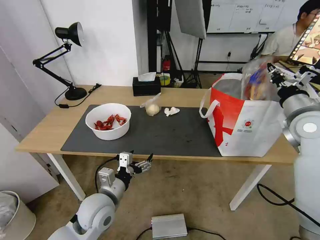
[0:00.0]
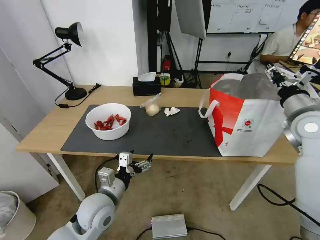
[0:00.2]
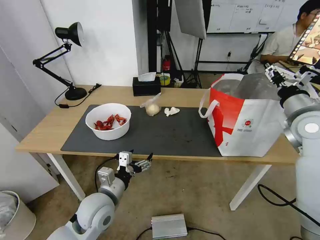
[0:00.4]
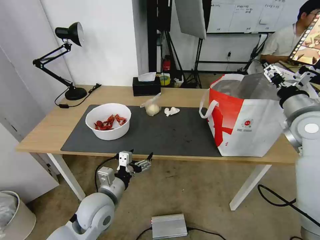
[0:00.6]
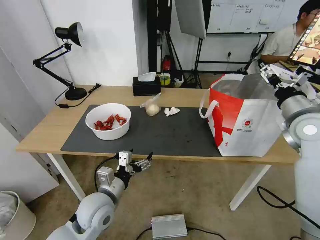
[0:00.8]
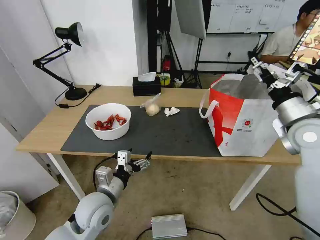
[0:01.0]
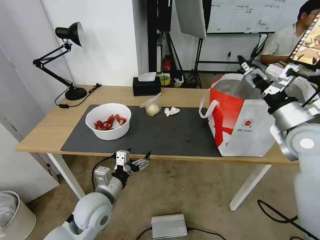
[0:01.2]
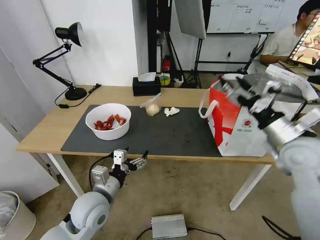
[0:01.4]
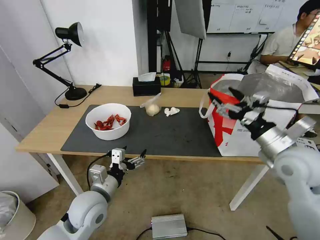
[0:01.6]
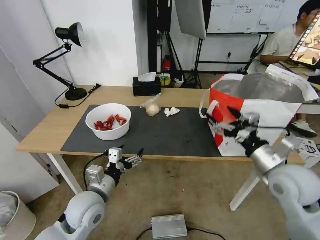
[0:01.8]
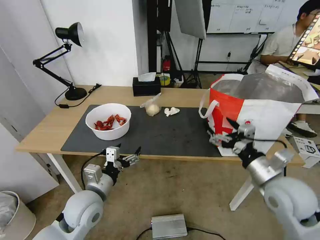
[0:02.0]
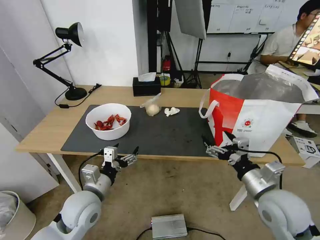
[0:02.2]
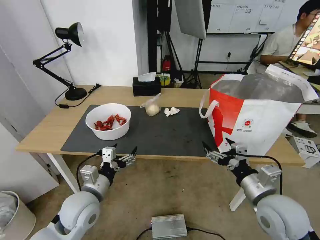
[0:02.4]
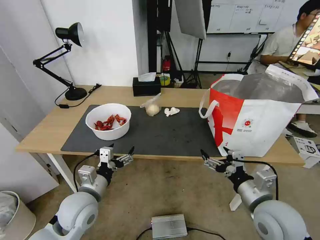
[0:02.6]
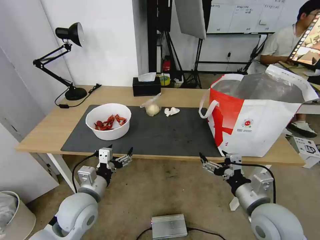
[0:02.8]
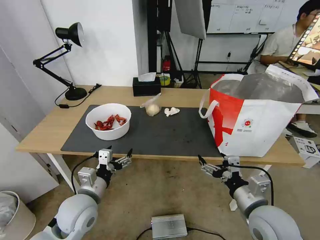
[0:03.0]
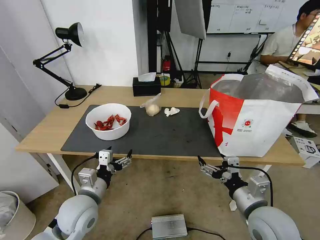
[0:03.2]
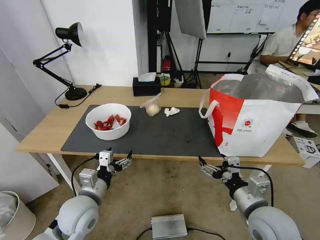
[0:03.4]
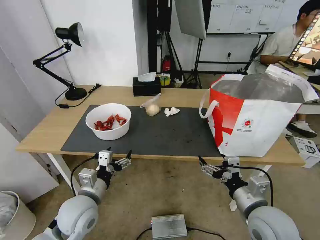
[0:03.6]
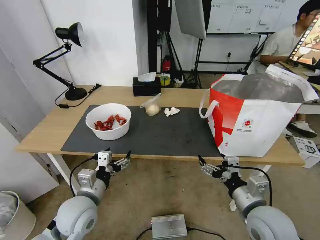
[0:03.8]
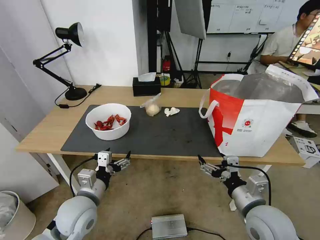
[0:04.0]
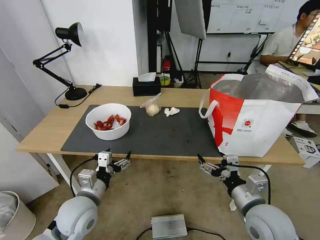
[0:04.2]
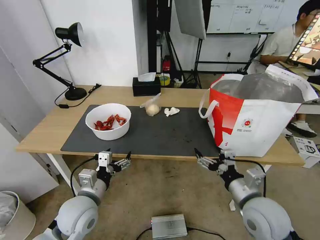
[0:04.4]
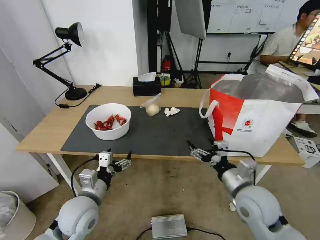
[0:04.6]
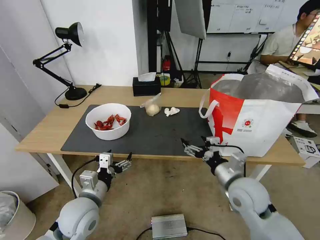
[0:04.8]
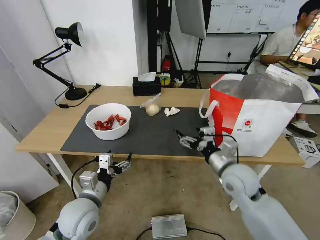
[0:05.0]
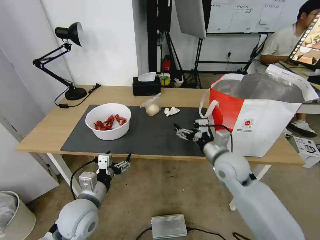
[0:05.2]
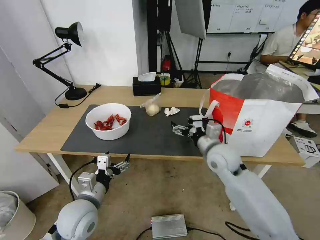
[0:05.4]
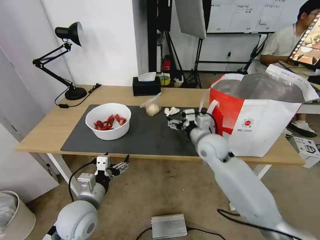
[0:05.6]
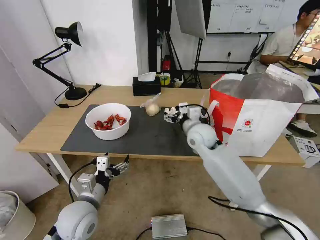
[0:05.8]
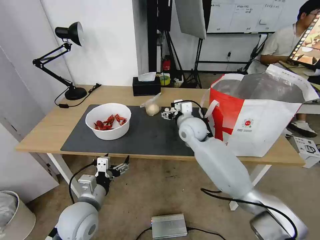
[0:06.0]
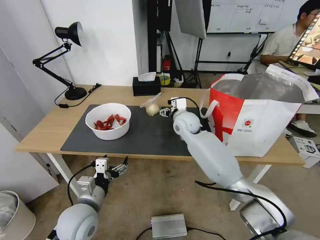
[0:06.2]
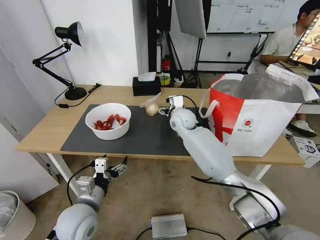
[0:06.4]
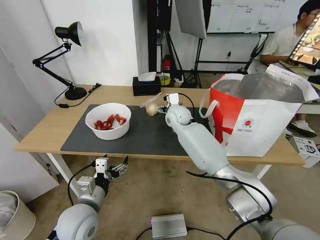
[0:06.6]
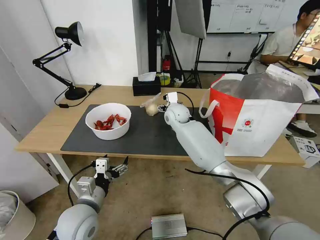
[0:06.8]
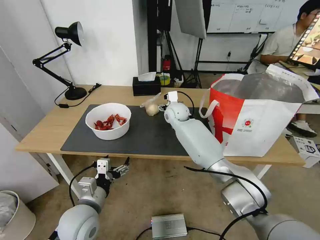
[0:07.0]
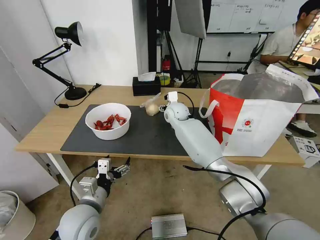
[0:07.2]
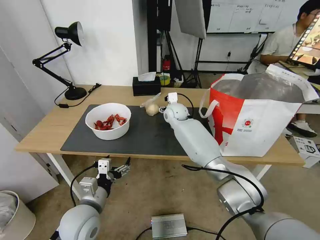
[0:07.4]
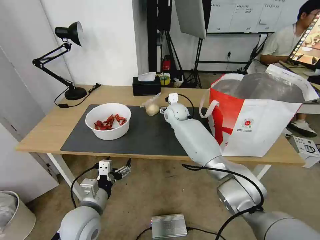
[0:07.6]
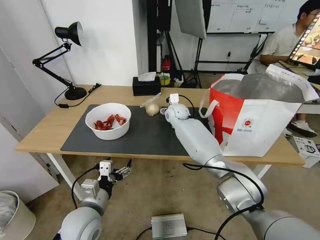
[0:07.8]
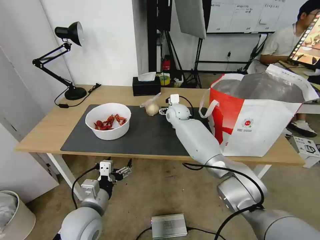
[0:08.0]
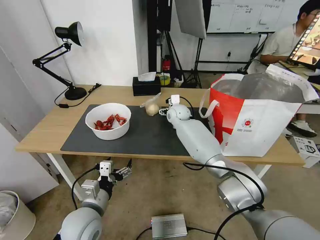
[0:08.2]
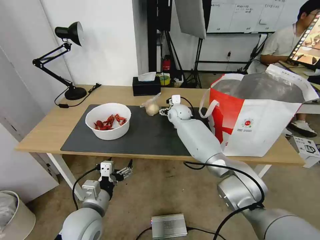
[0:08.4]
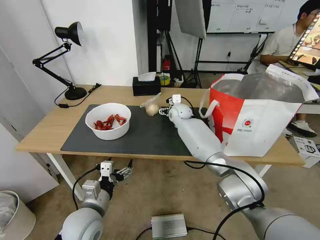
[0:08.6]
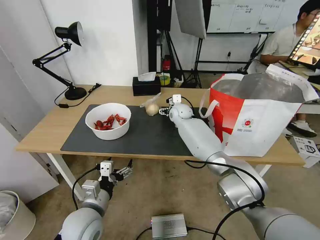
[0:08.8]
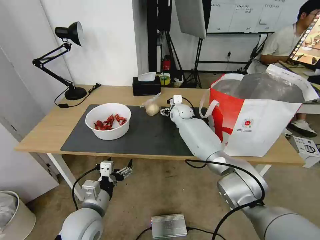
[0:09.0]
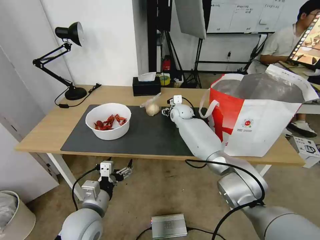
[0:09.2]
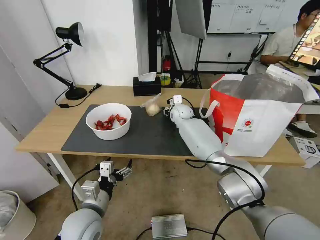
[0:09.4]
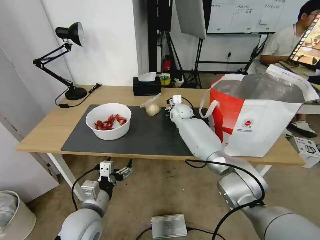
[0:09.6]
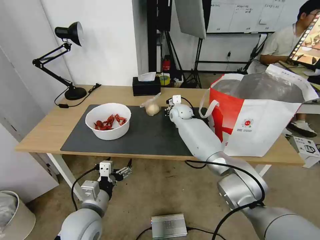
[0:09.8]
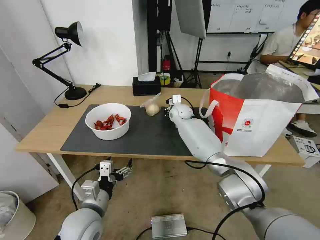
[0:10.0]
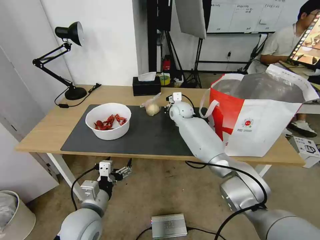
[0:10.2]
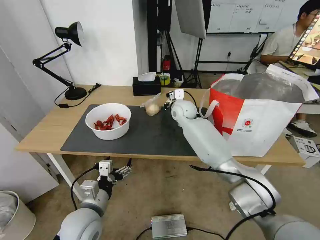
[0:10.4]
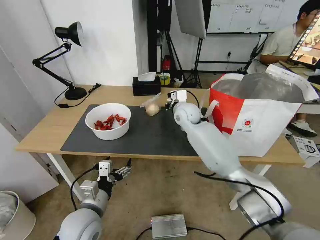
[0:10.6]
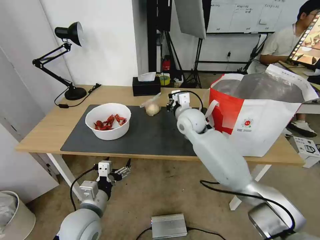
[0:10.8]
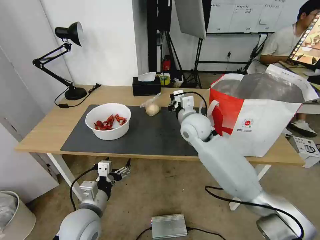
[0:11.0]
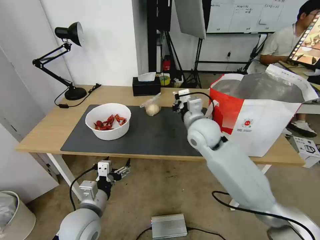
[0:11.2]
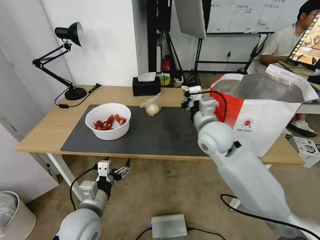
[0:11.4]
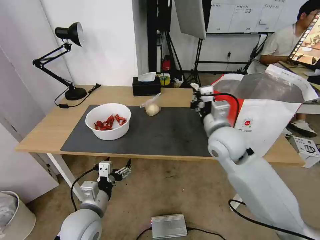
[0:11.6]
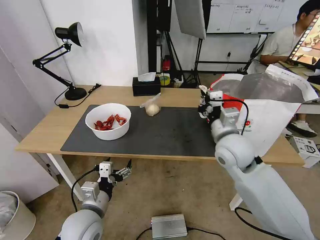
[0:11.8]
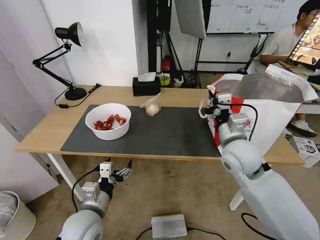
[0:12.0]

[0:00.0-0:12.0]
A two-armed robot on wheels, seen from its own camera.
Task of the whole recording: Pick up the trash from the table and place it into the takeout bag.
0:00.0 to 0:01.6: The right gripper heads backward and to the left, covering some 10 cm, and opens up.
0:01.6 to 0:03.0: The right gripper moves downward, backward and to the left, approximately 15 cm.
0:03.0 to 0:04.4: There are only small adjustments of the grippers.
0:04.4 to 0:06.0: The right gripper goes approximately 30 cm forward and to the left.
0:06.0 to 0:07.6: The right gripper travels forward by roughly 10 cm.
0:07.6 to 0:09.0: The grippers stay close to where they were, moving slightly.
0:09.0 to 0:10.4: The right gripper changes place by roughly 5 cm, and closes up.
0:10.4 to 0:12.0: The right gripper moves backward and to the right, about 25 cm.

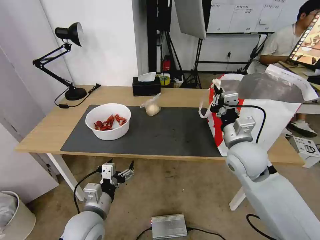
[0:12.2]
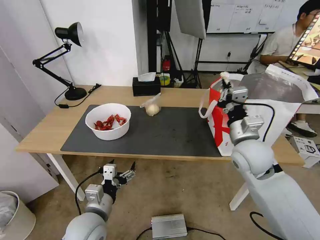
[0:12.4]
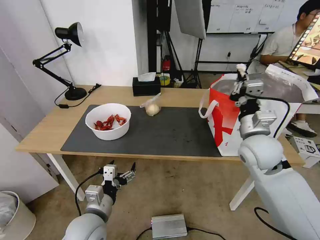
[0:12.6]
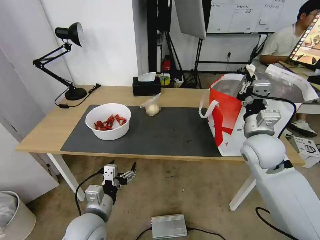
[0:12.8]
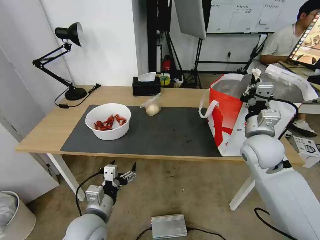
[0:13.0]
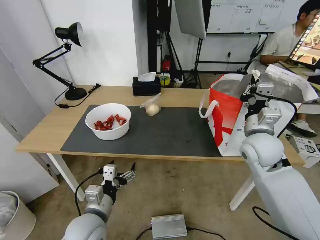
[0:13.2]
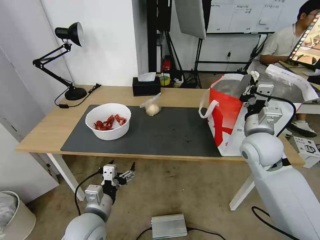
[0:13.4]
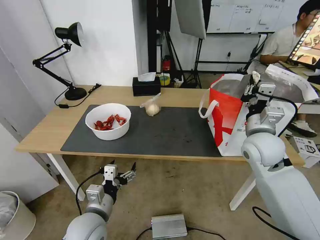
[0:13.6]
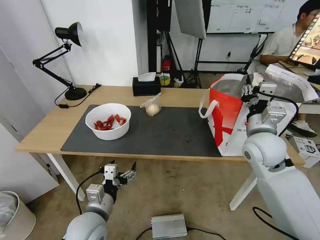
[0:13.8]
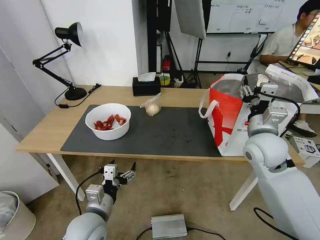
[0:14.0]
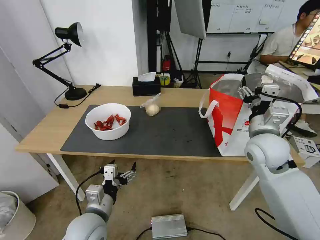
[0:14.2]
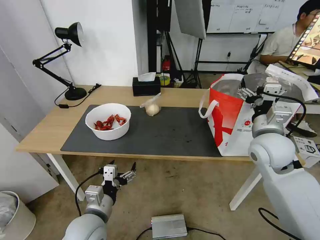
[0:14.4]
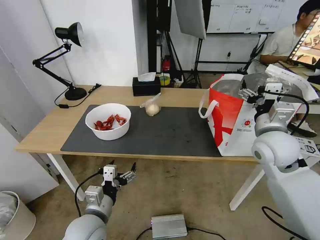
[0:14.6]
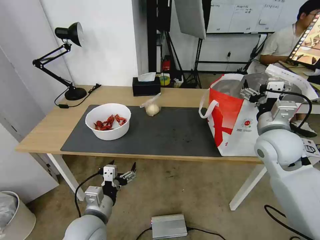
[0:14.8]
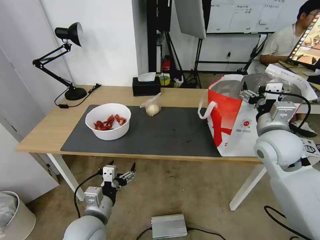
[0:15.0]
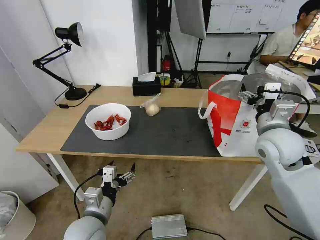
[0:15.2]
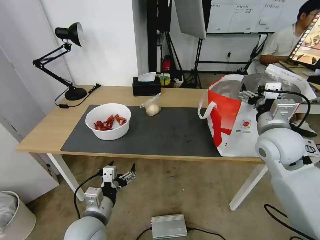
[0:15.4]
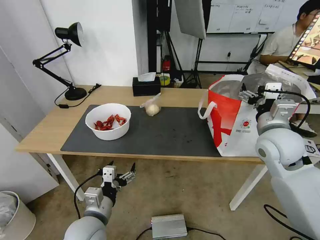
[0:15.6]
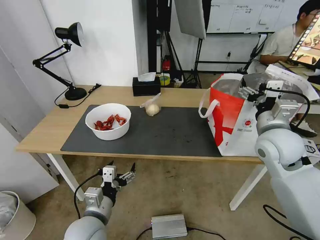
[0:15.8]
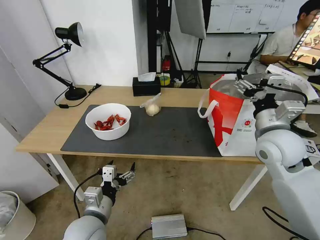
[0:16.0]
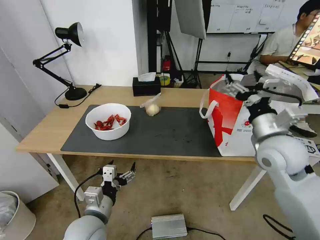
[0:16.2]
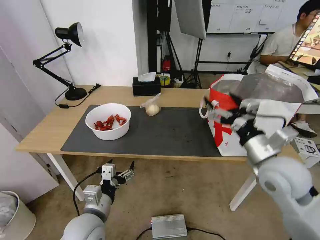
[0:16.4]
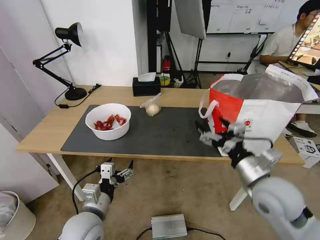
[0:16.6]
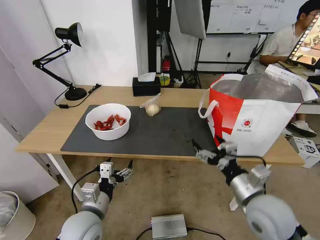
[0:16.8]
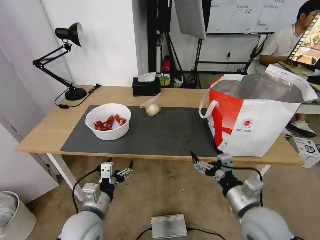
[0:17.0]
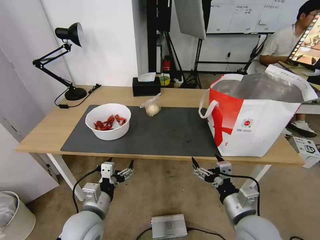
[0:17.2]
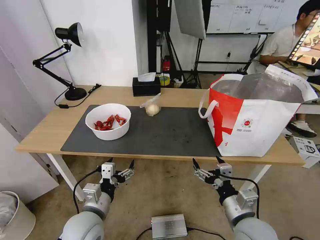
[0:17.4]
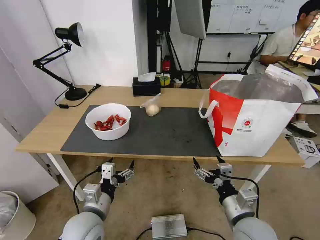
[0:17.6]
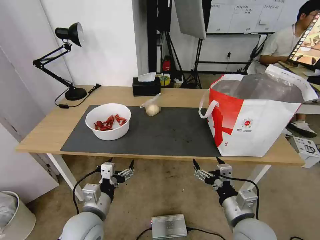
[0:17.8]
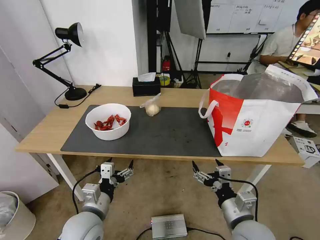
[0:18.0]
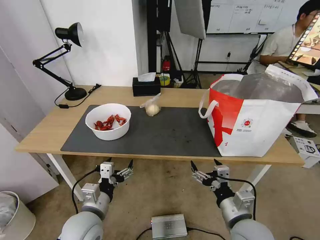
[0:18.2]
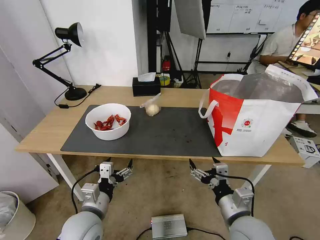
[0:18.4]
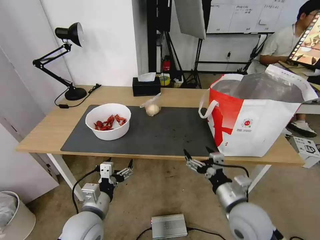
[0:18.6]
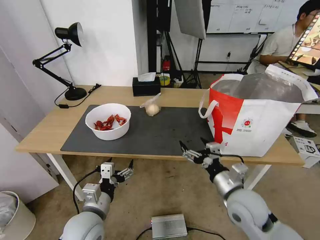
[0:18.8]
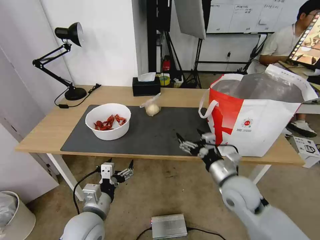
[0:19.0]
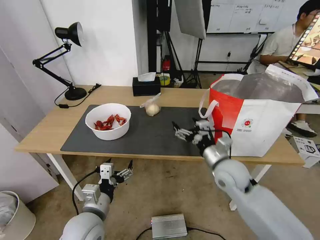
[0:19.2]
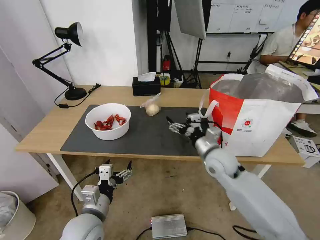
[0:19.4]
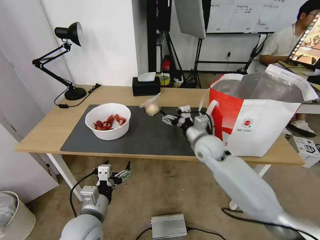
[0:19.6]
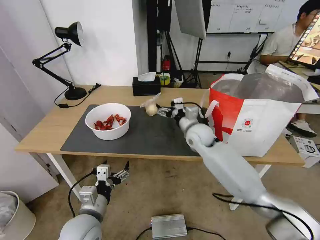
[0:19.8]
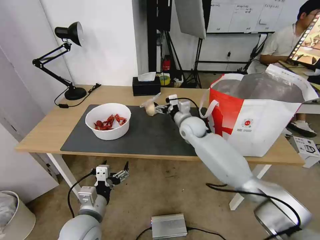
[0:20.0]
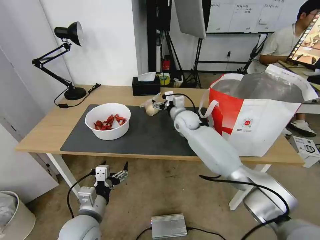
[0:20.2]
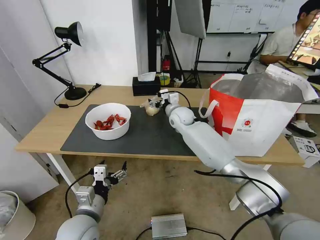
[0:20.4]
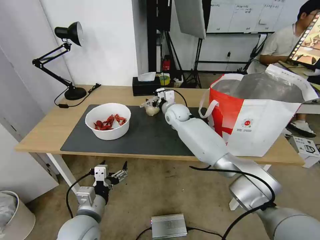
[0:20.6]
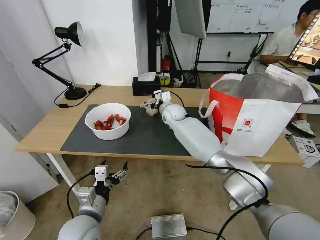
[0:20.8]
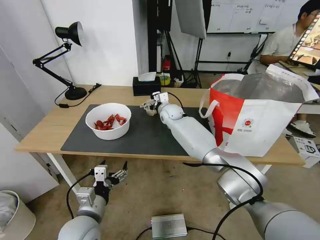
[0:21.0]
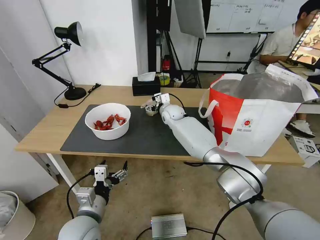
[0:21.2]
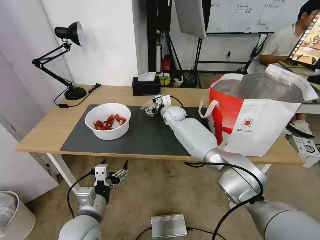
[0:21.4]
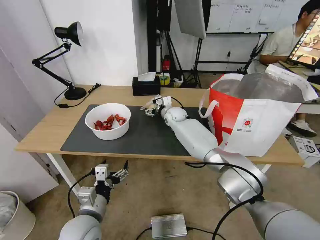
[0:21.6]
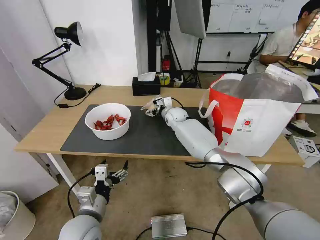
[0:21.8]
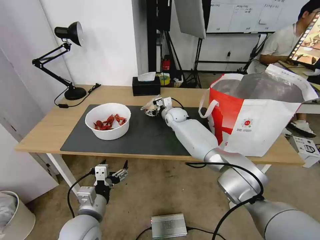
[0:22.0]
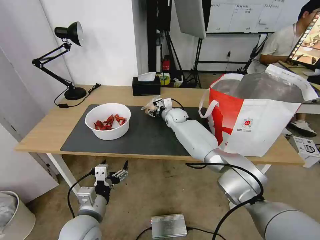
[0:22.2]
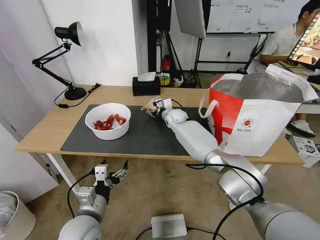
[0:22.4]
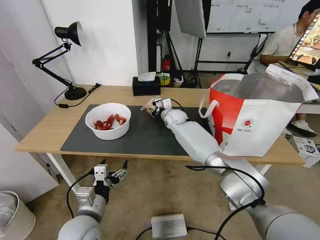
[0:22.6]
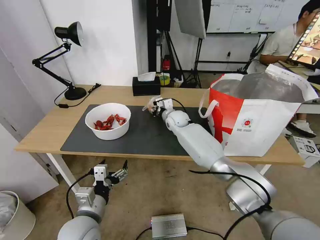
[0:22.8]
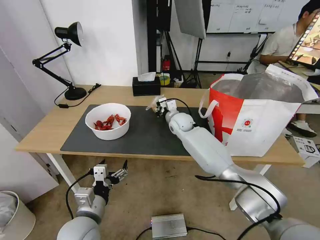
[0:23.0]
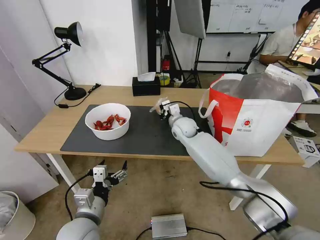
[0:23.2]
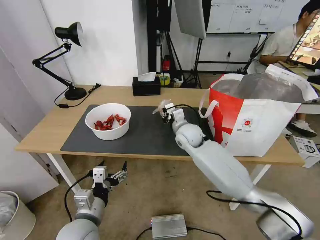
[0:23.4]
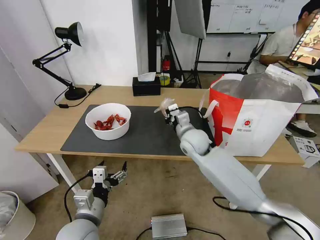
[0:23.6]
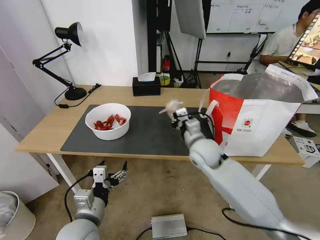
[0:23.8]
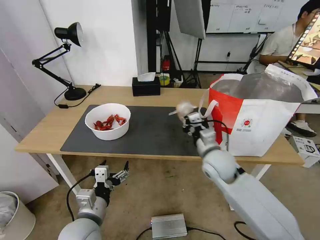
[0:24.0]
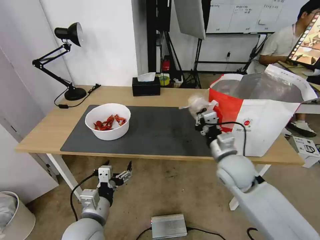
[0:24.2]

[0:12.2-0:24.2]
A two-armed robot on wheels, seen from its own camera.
Task of the whole recording: Pick up the trash from the table and place it into the takeout bag.
0:12.2 to 0:13.8: The right gripper shifts some 5 cm to the right, and opens its fingers.
0:13.8 to 0:15.2: The right gripper opens its fingers.
0:15.2 to 0:16.6: The right gripper moves backward and downward, about 10 cm.
0:16.6 to 0:18.2: The right gripper moves downward and backward, roughly 10 cm.
0:18.2 to 0:19.8: The right gripper moves forward, some 30 cm.
0:19.8 to 0:21.2: The right gripper goes about 15 cm forward and to the left.
0:21.2 to 0:22.6: The right gripper closes its fingers.
0:22.6 to 0:24.2: The right gripper heads backward and to the right, covering roughly 30 cm.
